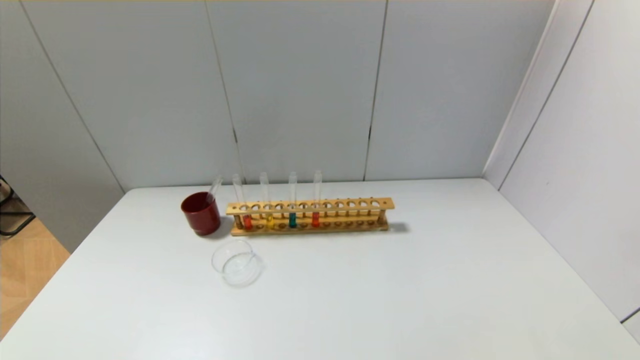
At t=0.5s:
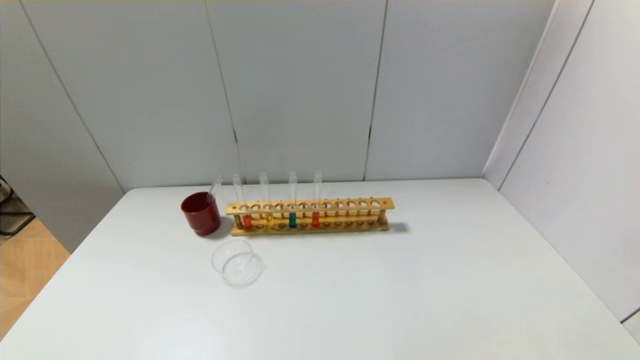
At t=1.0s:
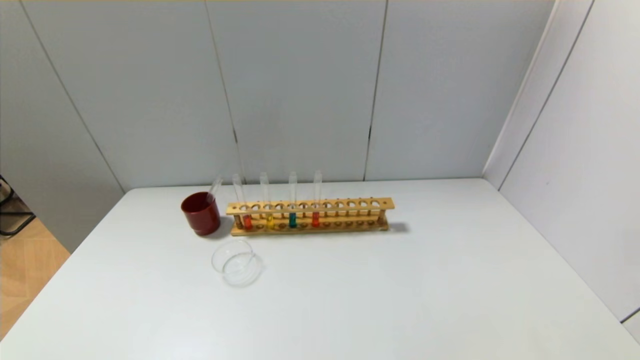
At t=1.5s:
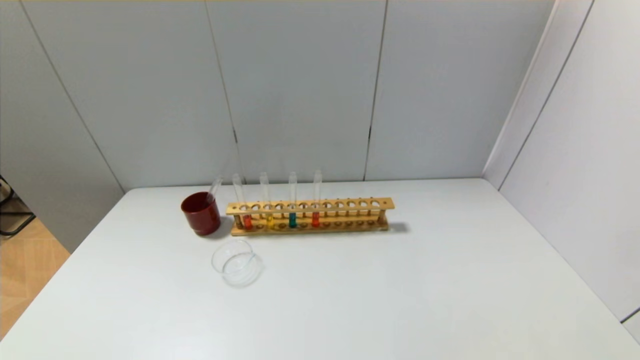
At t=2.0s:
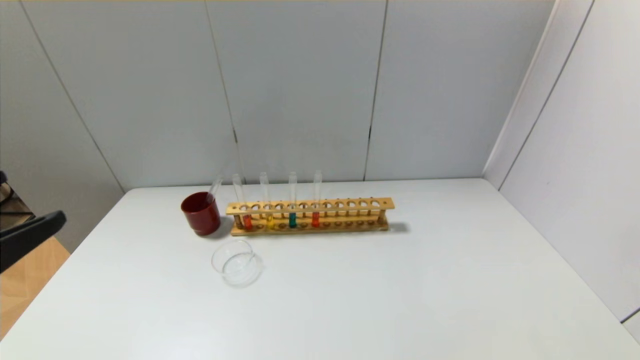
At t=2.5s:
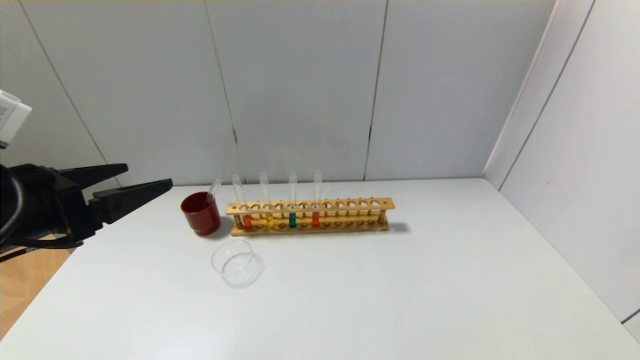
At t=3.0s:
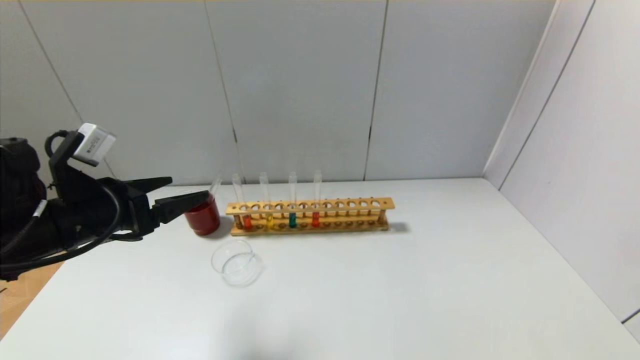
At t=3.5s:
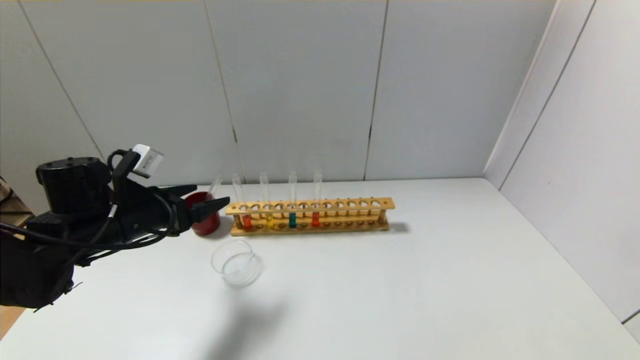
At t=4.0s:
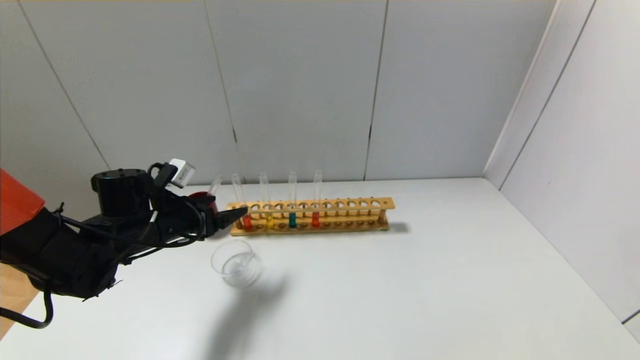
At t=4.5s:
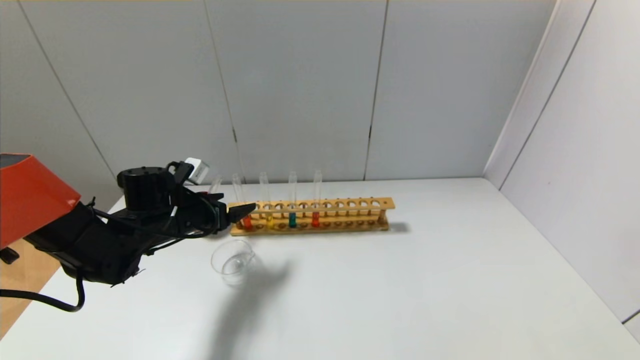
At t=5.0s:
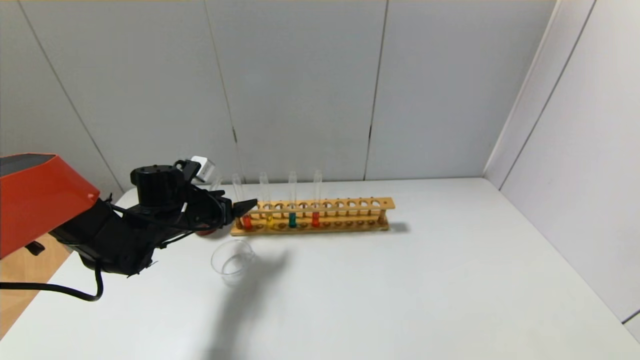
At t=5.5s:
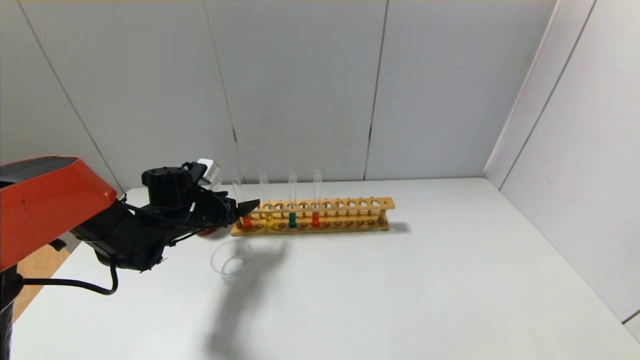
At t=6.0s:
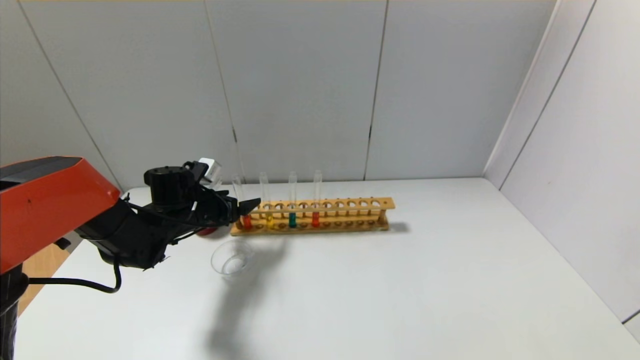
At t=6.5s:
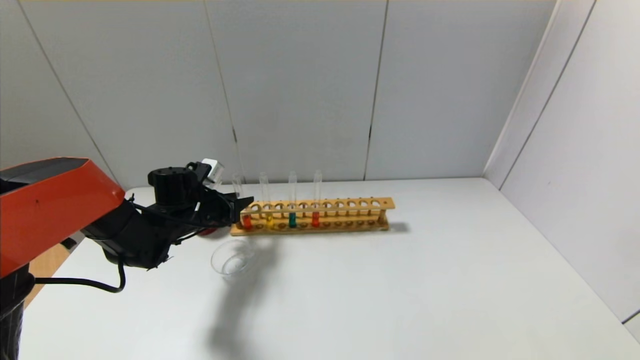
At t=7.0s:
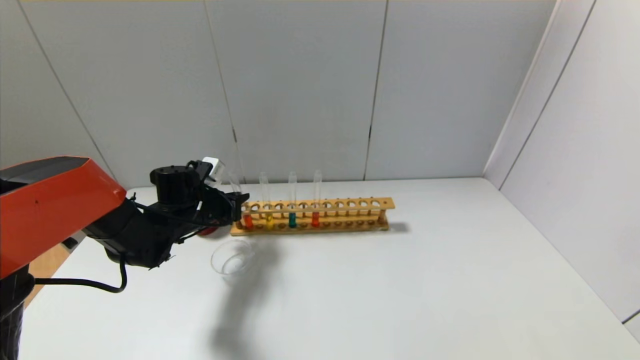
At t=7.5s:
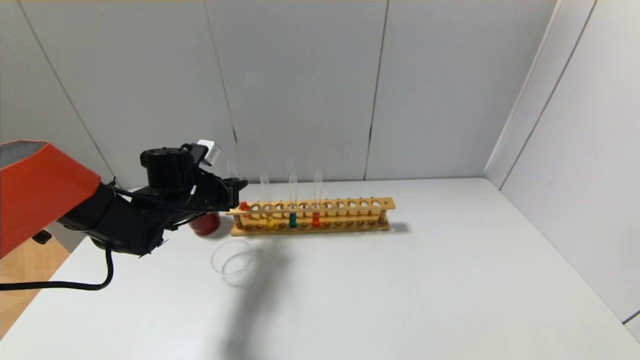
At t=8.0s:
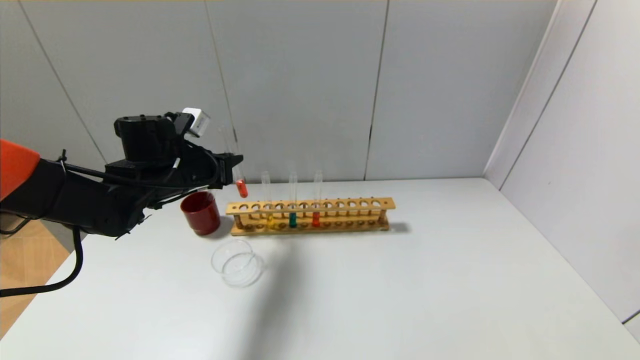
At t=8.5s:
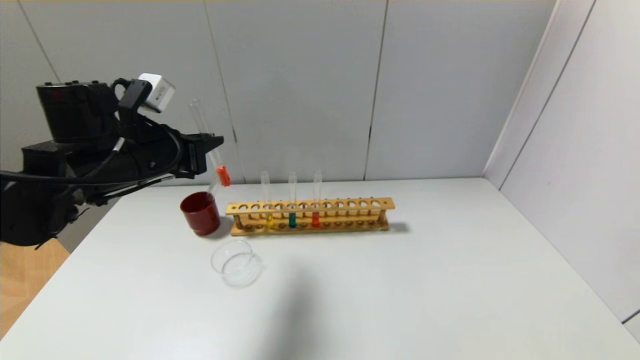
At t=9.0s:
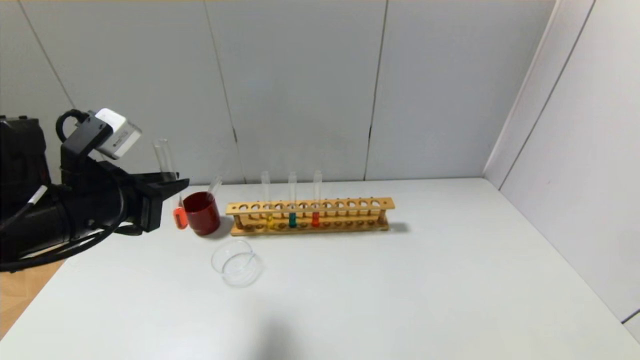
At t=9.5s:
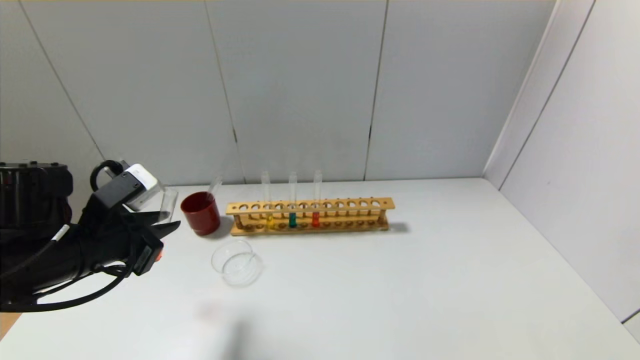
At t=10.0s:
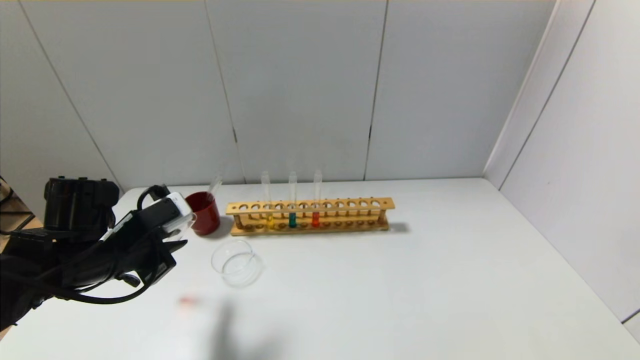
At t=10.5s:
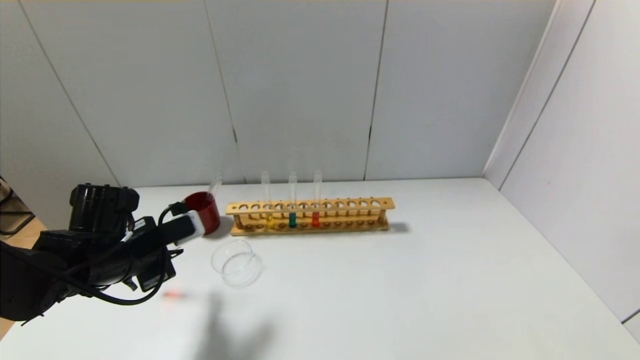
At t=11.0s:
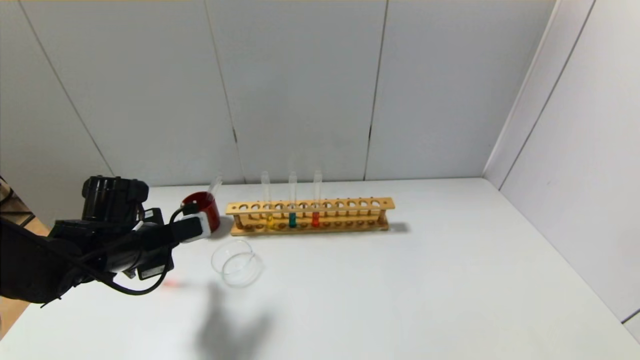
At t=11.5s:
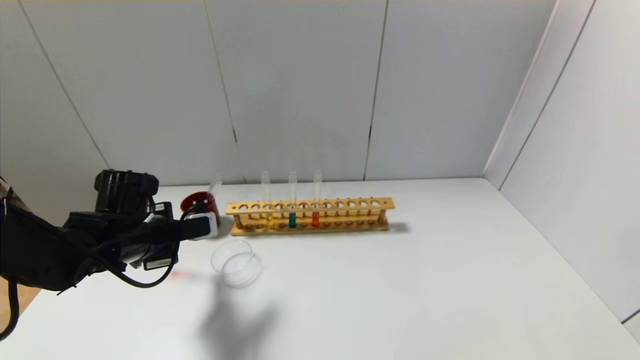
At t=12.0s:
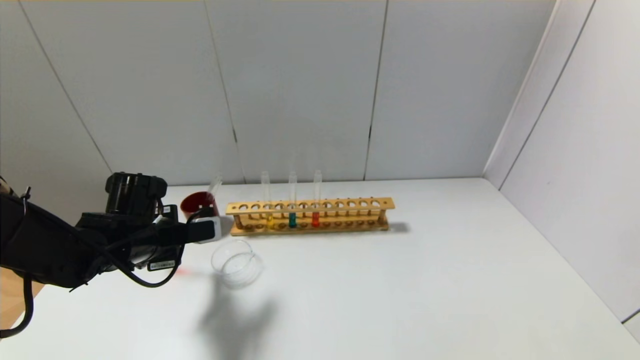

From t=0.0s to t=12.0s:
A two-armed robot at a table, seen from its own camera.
Step, from t=0.0s to t=7.0s: Grasp the red reagent with the left gripper.
From t=0.0s to t=2.0s: The left gripper heads upward and forward, covering approximately 20 cm.
From t=2.0s to t=4.0s: The left gripper travels forward and downward by some 30 cm.
From t=4.0s to t=6.0s: The left gripper goes roughly 5 cm forward.
From t=6.0s to t=8.0s: The left gripper moves upward, roughly 10 cm, and closes.
From t=8.0s to t=10.0s: The left gripper shifts about 10 cm backward.
From t=10.0s to t=12.0s: The left gripper travels forward by about 5 cm.

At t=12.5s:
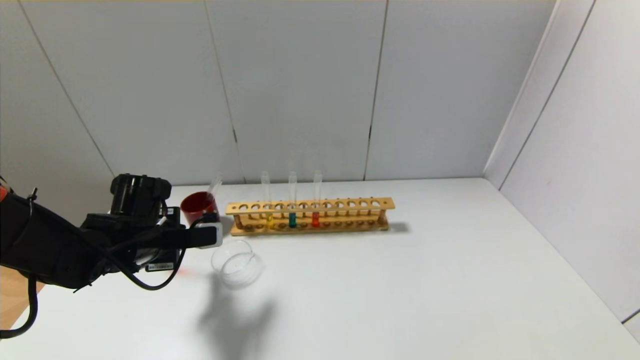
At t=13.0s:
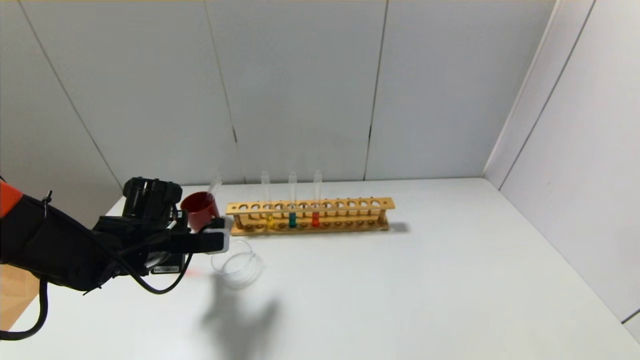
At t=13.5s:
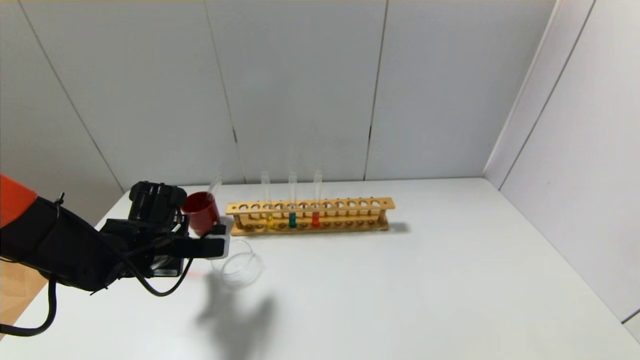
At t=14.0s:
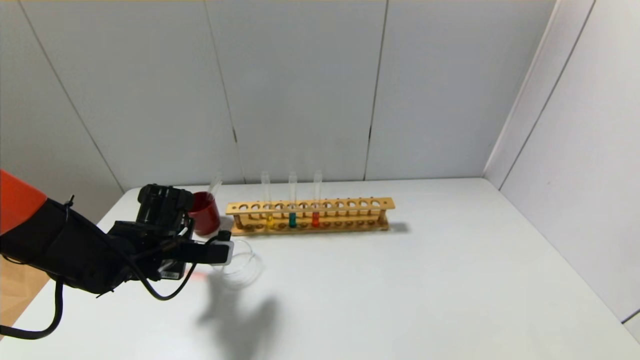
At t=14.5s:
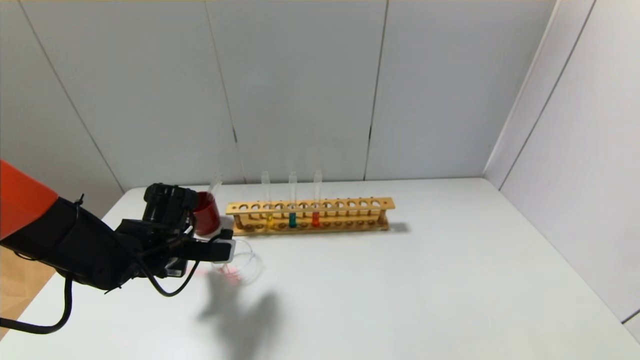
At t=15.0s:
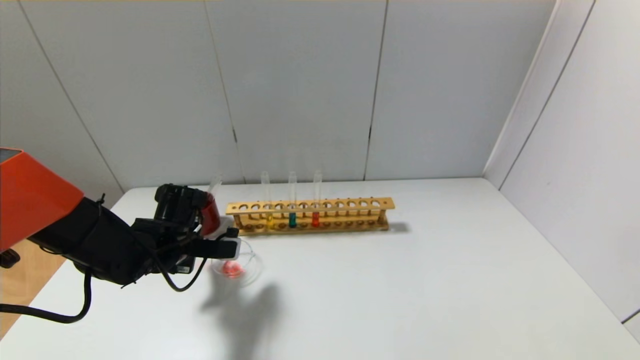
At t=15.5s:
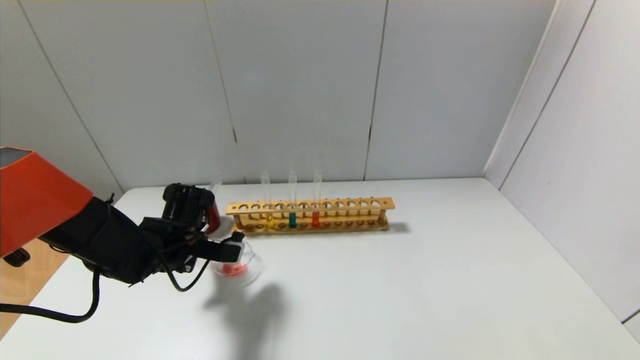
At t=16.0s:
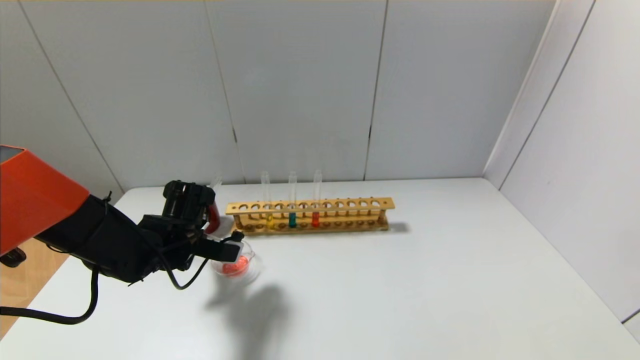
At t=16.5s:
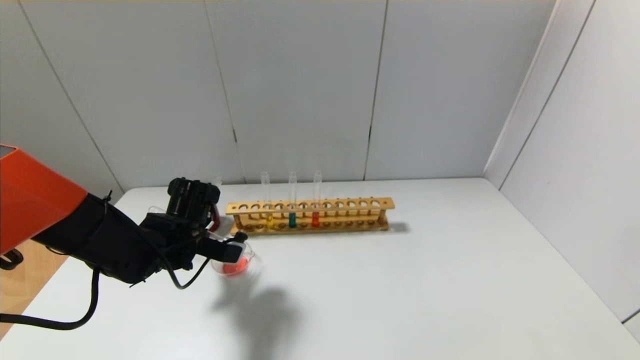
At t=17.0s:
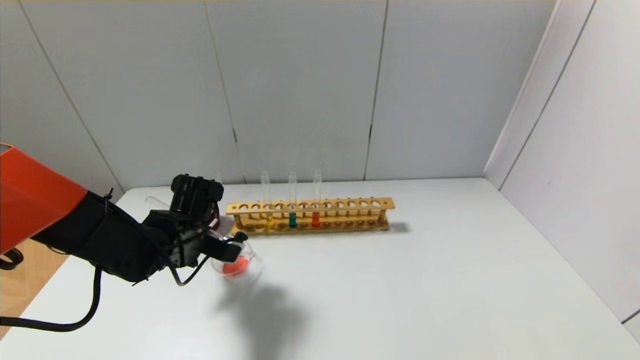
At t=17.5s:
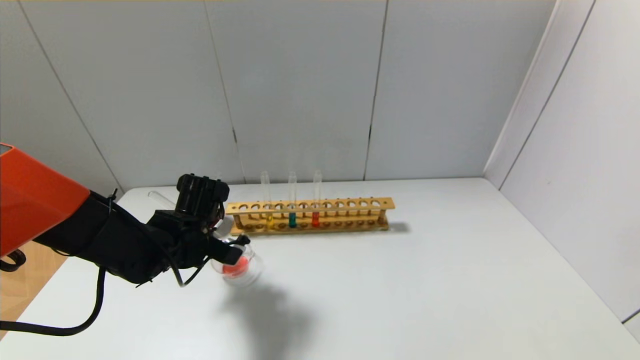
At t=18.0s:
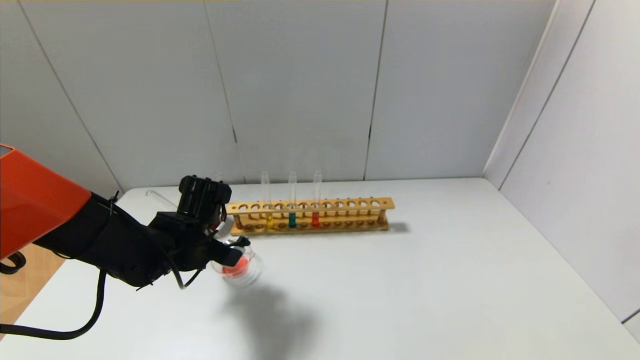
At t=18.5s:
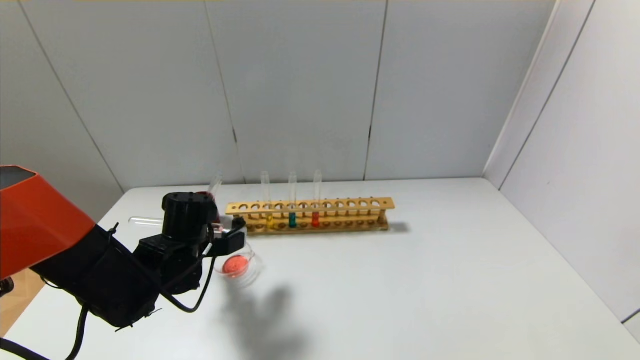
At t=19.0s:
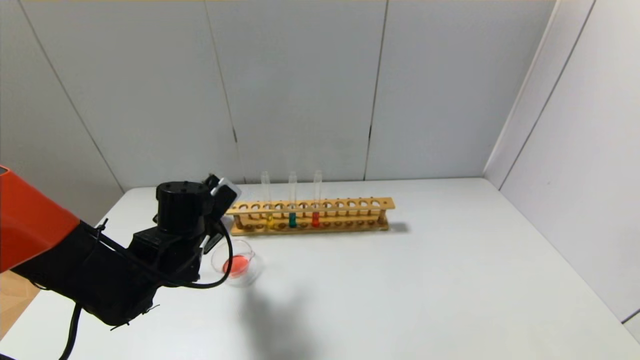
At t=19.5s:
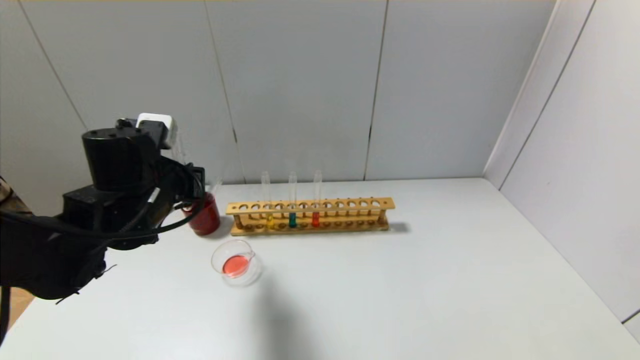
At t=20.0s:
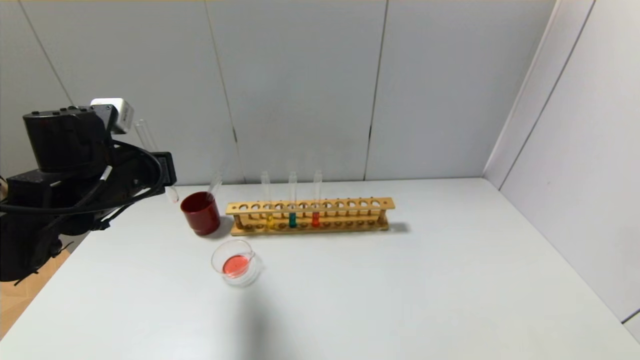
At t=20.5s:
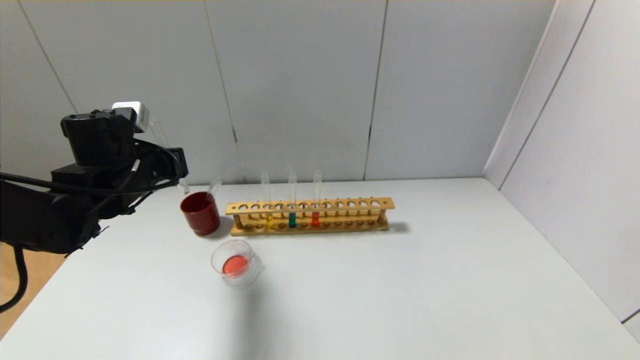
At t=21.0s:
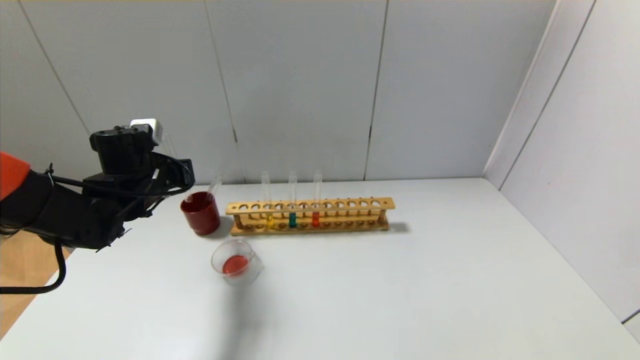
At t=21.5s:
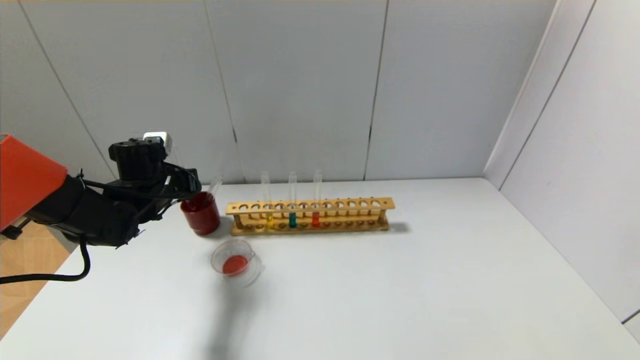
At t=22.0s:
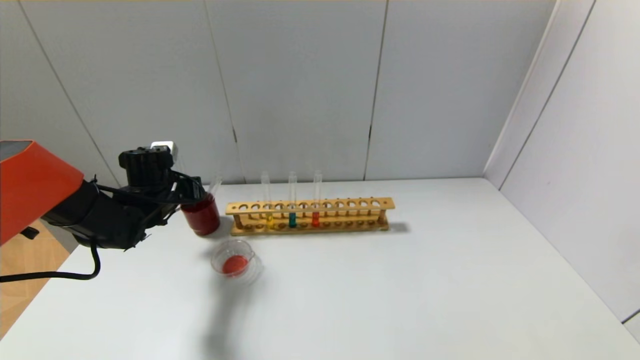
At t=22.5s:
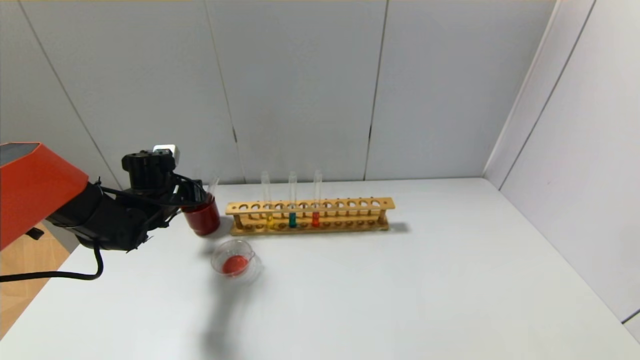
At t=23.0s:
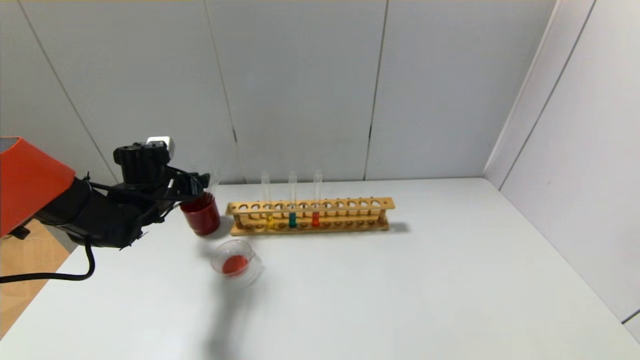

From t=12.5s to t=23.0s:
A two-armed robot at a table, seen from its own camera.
Step, from t=12.5s to t=18.0s: Pour the red reagent into the graduated cylinder with the left gripper.
Step, from t=18.5s to t=22.5s: Place the test tube into the brown cup with the left gripper.
From t=12.5s to t=14.5s: There are only small adjustments of the grippers.
From t=14.5s to t=16.5s: There are only small adjustments of the grippers.
From t=19.0s to t=21.0s: The left gripper goes approximately 10 cm to the left, forward and upward.
From t=21.0s to t=23.0s: The left gripper opens.
